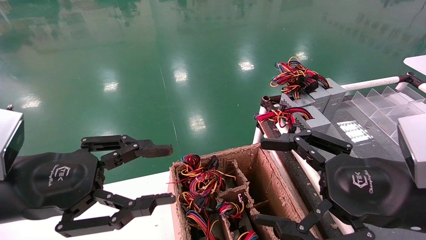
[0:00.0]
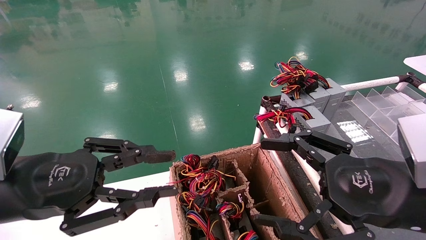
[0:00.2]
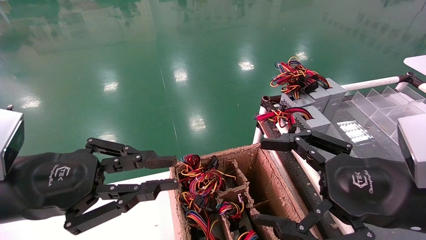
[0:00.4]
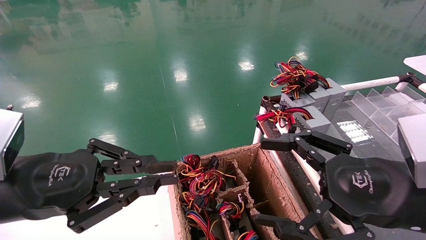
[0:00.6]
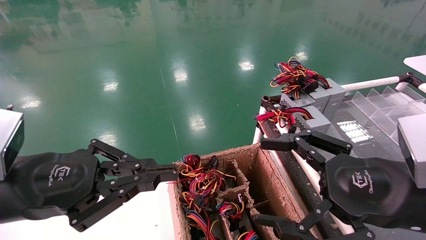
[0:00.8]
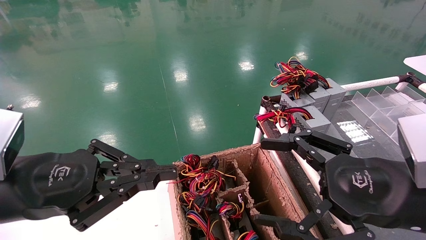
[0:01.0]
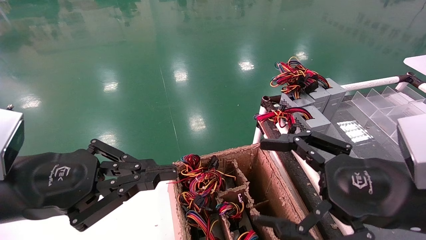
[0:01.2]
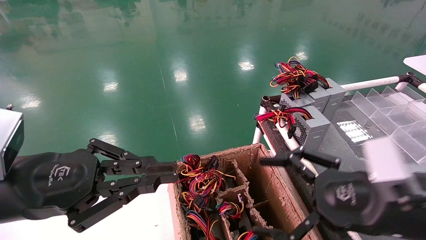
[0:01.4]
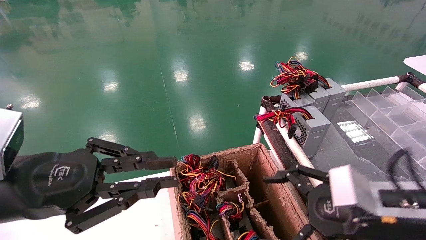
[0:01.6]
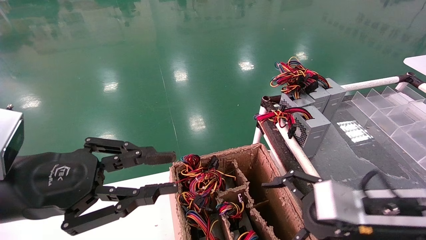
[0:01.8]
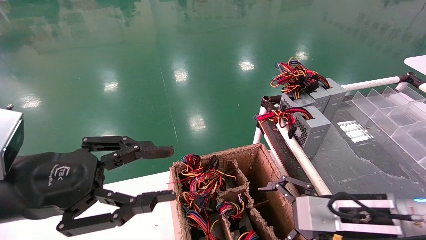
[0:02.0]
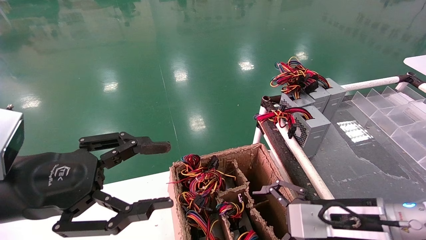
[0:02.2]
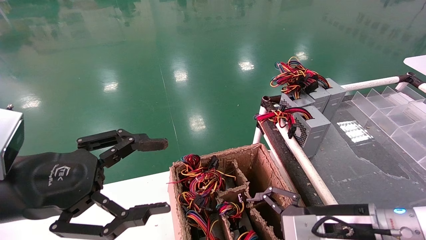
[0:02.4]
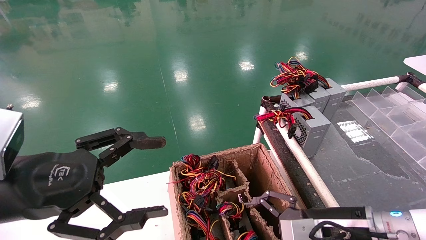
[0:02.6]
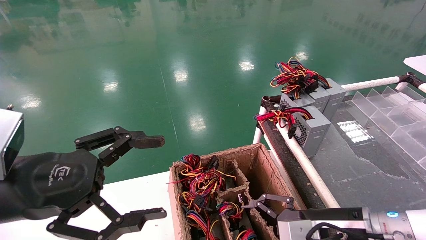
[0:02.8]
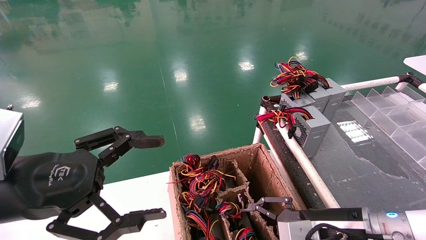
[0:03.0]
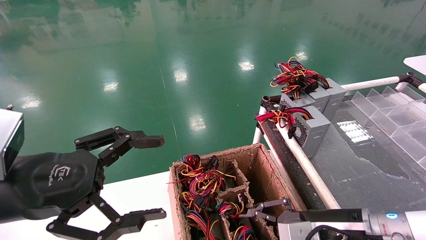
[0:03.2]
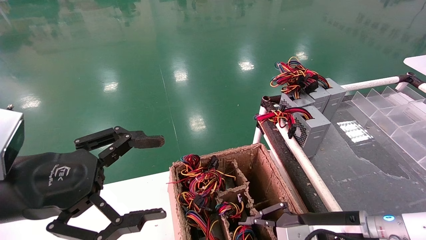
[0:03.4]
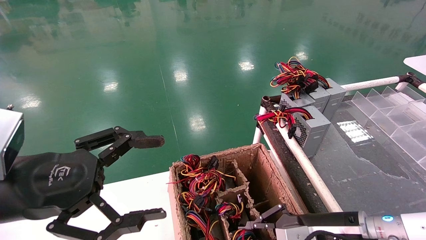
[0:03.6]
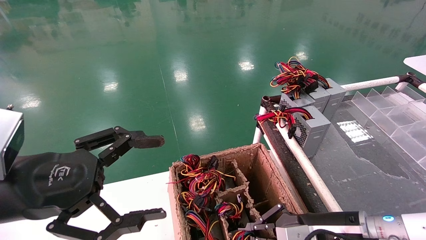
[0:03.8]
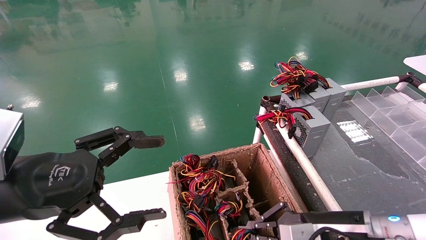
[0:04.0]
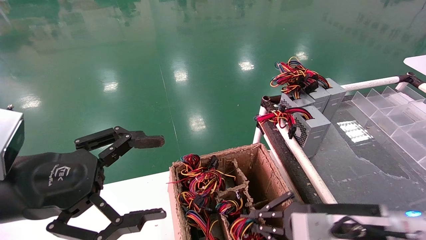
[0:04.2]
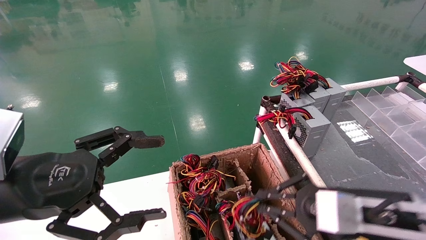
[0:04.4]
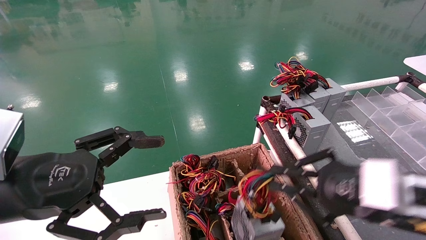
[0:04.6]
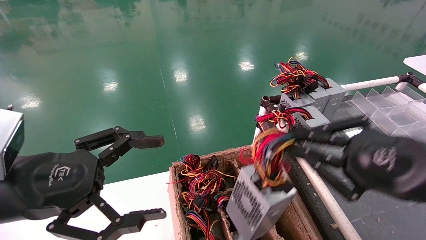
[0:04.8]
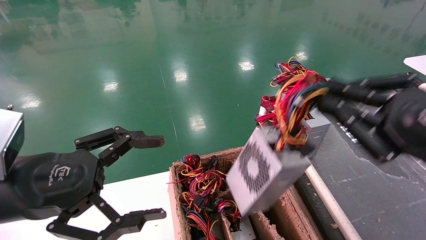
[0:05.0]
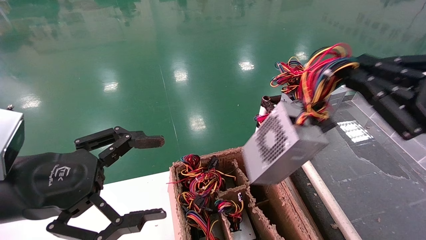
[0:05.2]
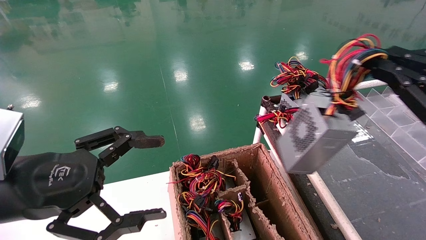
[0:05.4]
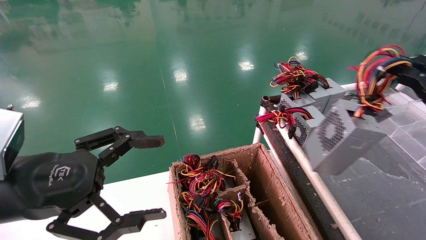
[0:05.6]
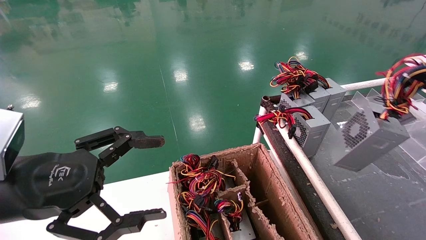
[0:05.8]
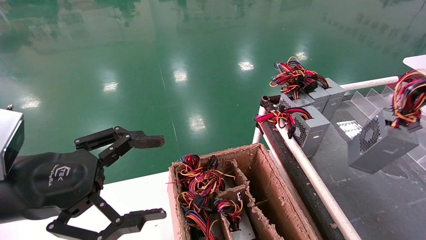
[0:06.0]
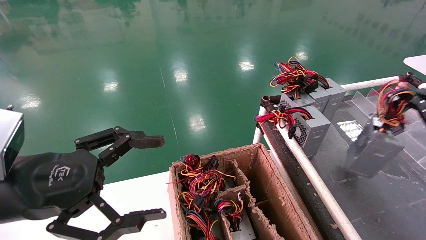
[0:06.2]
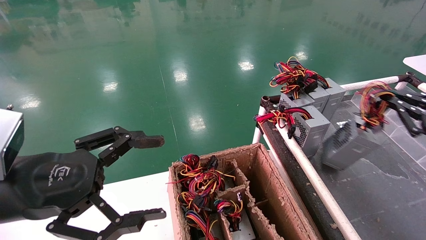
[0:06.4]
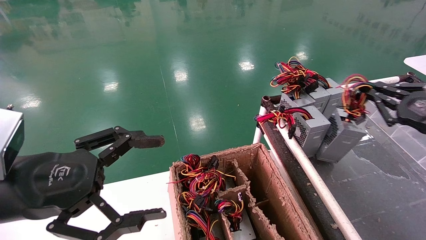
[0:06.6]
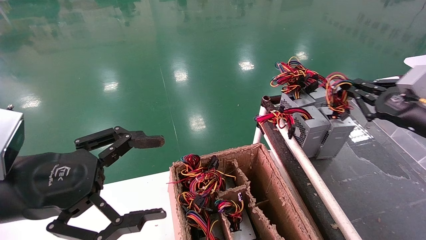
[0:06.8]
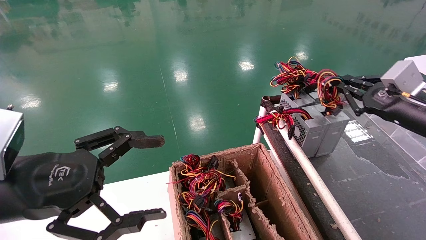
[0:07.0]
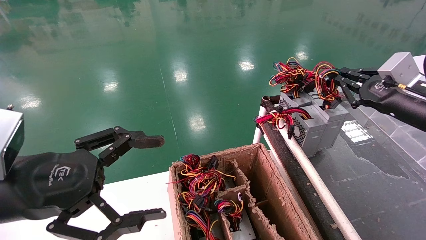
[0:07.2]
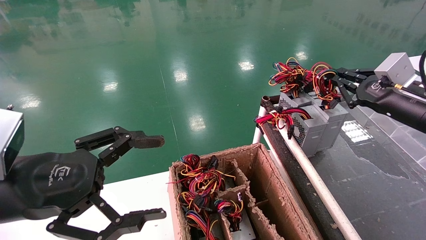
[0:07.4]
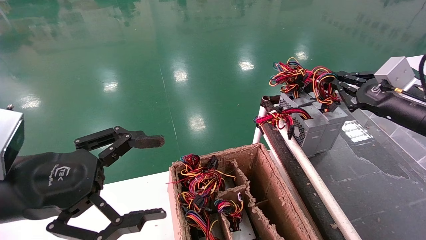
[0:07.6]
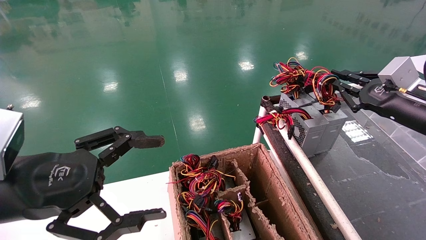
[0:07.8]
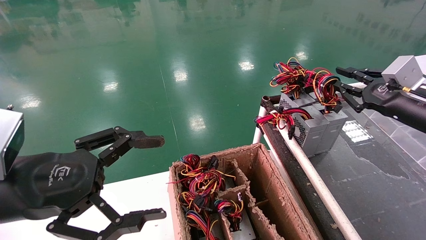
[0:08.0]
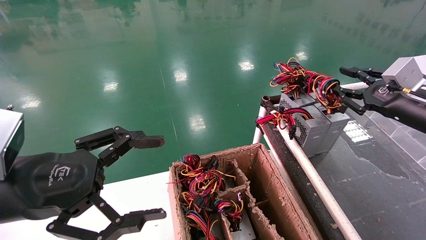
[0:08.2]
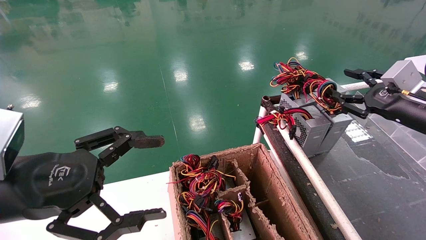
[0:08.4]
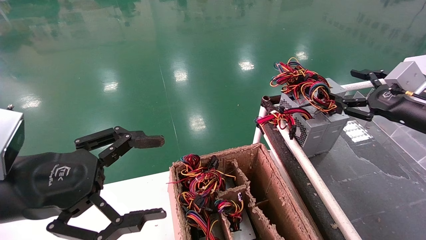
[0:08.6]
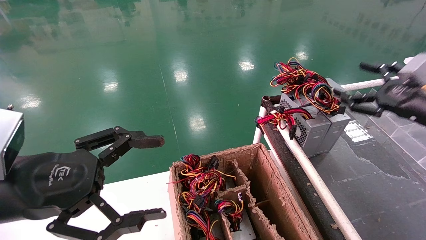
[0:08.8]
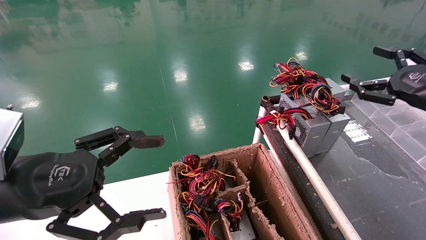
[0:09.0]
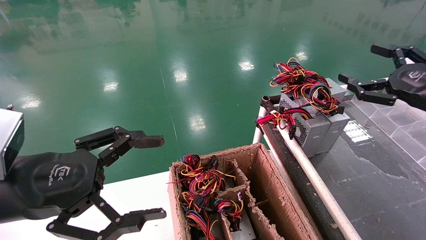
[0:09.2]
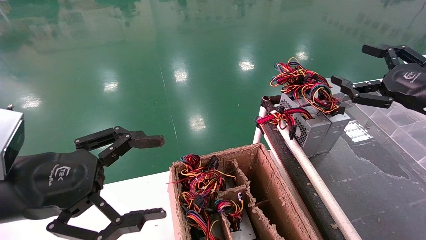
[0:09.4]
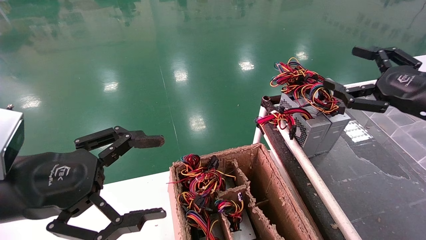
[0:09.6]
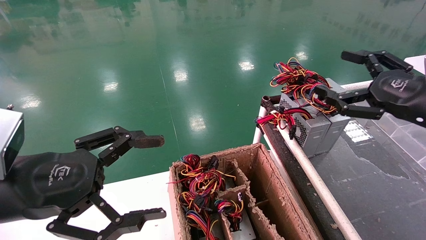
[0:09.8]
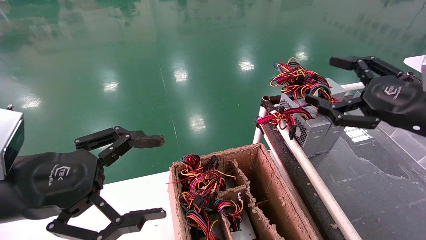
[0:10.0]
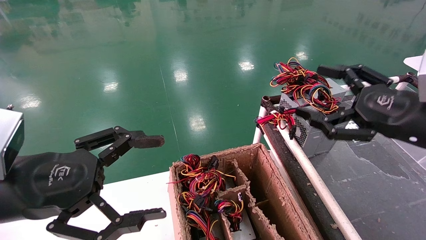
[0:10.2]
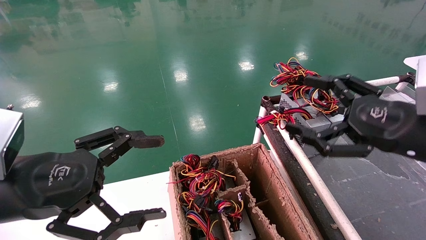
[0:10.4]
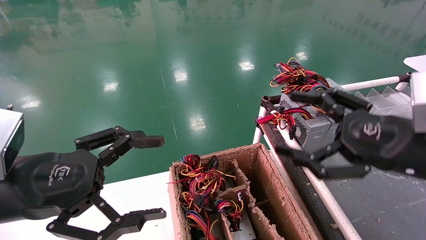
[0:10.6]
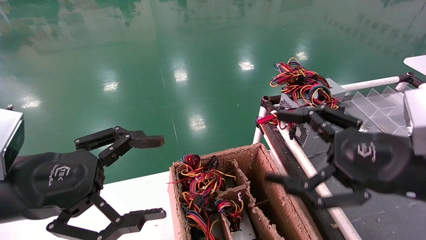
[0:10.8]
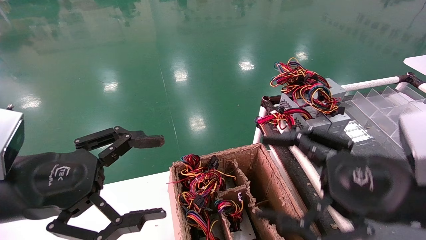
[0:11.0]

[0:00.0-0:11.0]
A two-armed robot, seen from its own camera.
Step, 0:01.0 to 0:04.0: Grab and lift the power supply from the large box.
Step, 0:04.2 to 0:08.0: Place the power supply on the operating table.
0:00.0 to 0:01.6: The left gripper closes up. Meanwhile the right gripper ends up some 5 cm from where it was.
0:01.6 to 0:03.2: The right gripper moves downward, about 10 cm, and closes up, while the left gripper opens.
0:03.2 to 0:04.8: The right gripper heads upward, backward and to the right, covering roughly 15 cm, and closes its fingers.
0:04.8 to 0:06.2: The right gripper moves to the right, approximately 20 cm.
0:06.2 to 0:07.8: The right gripper travels forward and to the left by some 15 cm.
0:07.8 to 0:09.4: The right gripper shifts approximately 5 cm backward, and opens.
0:09.4 to 0:11.0: The right gripper goes some 20 cm to the left and backward.

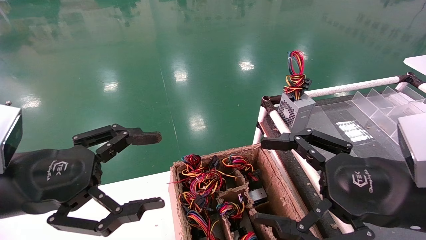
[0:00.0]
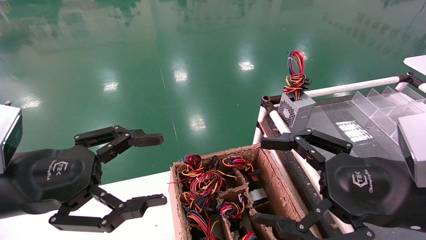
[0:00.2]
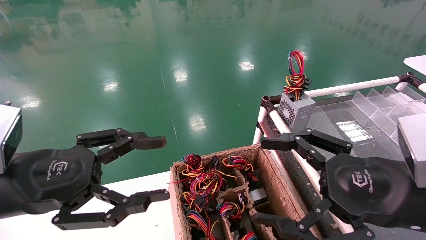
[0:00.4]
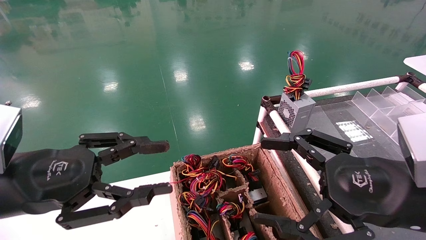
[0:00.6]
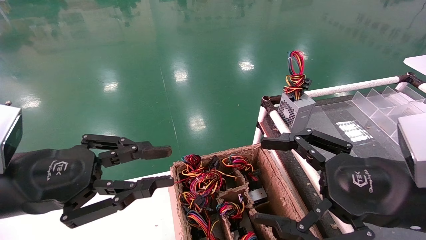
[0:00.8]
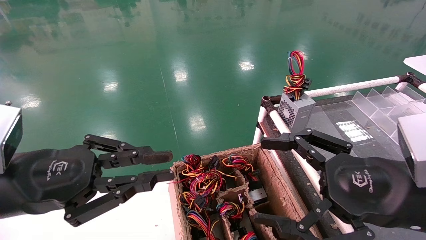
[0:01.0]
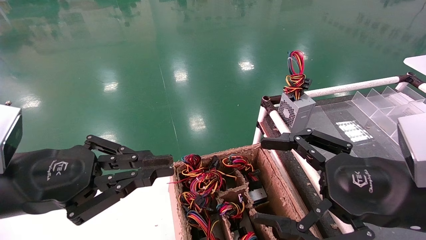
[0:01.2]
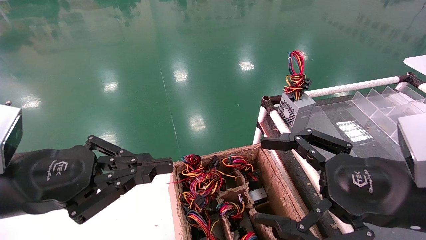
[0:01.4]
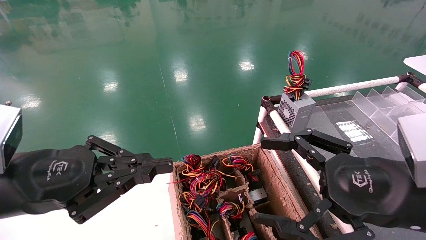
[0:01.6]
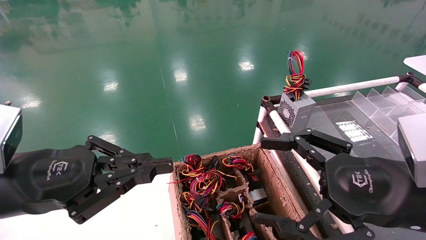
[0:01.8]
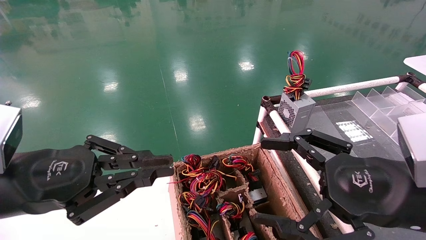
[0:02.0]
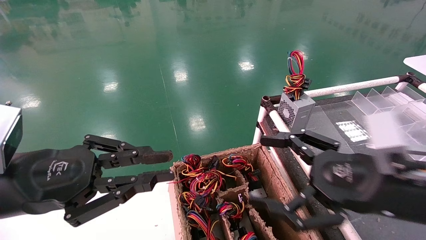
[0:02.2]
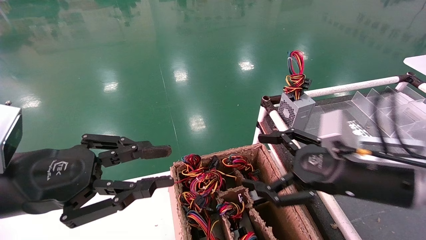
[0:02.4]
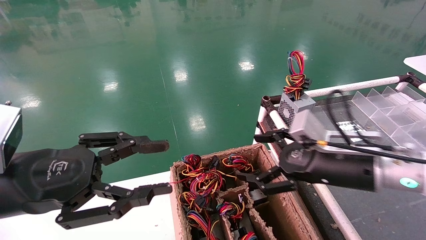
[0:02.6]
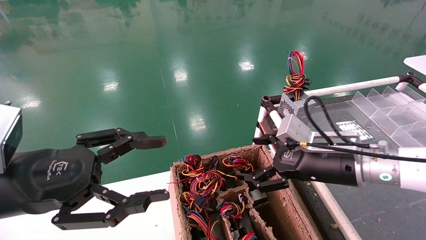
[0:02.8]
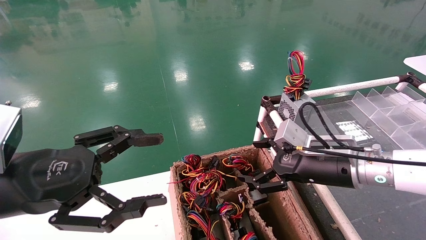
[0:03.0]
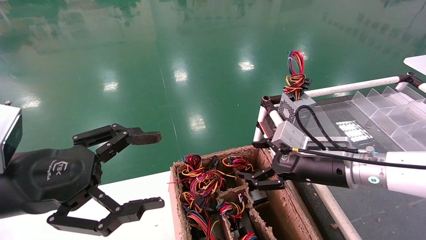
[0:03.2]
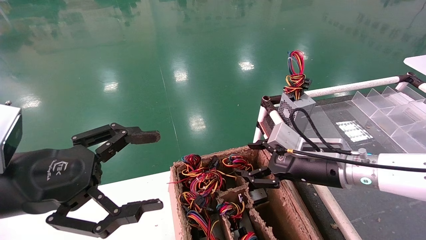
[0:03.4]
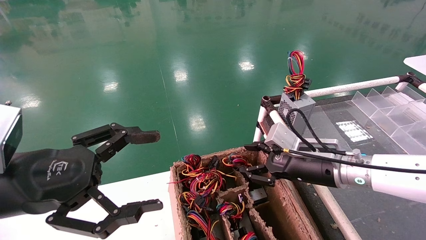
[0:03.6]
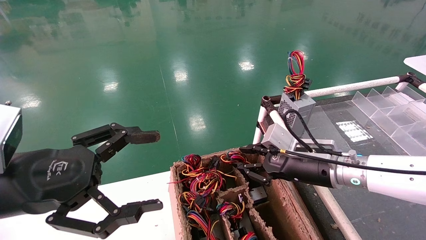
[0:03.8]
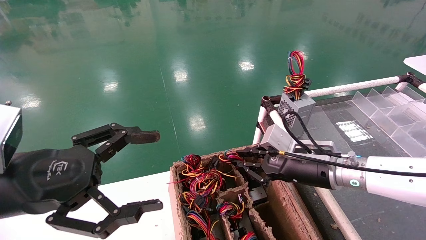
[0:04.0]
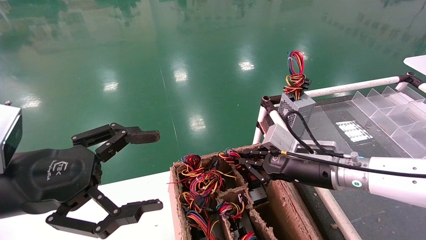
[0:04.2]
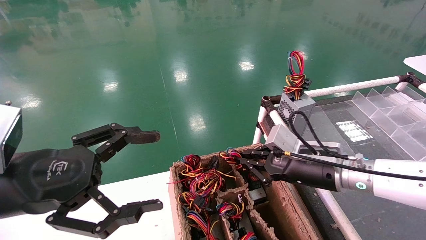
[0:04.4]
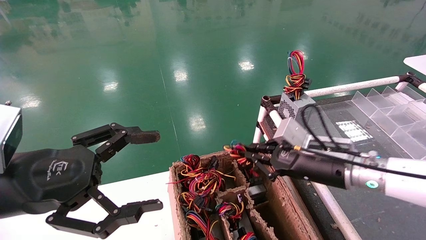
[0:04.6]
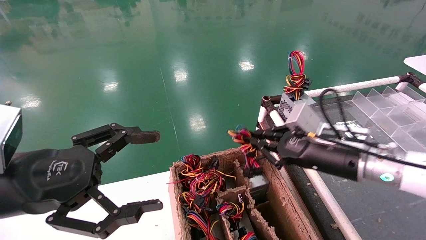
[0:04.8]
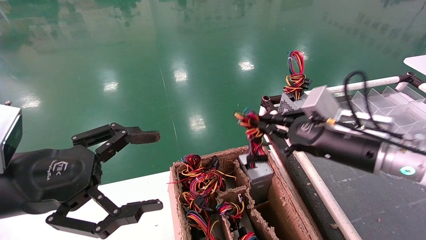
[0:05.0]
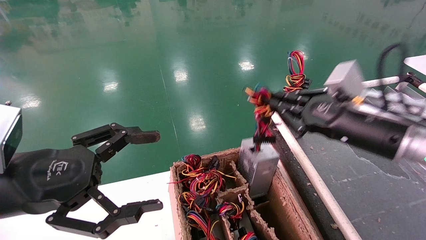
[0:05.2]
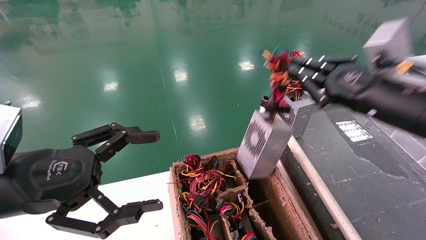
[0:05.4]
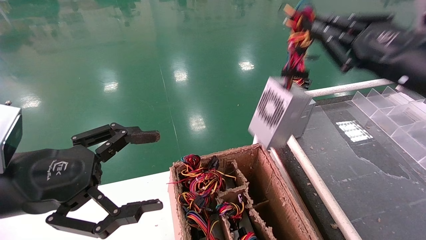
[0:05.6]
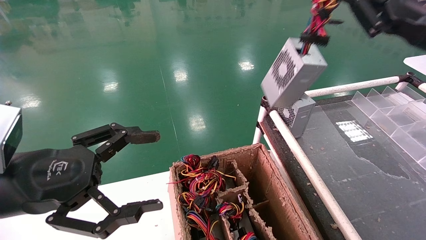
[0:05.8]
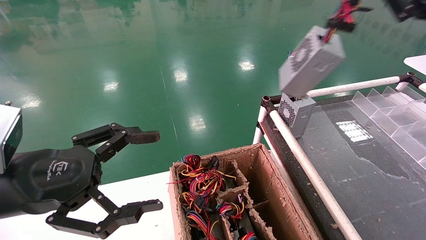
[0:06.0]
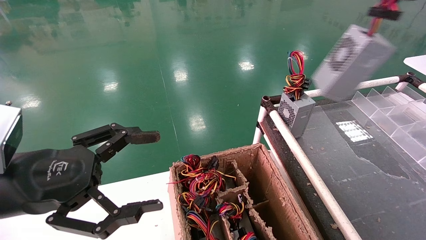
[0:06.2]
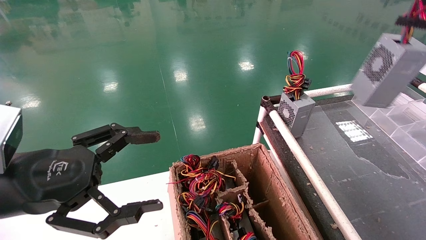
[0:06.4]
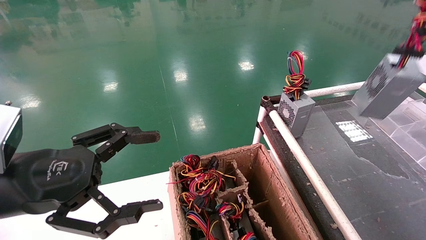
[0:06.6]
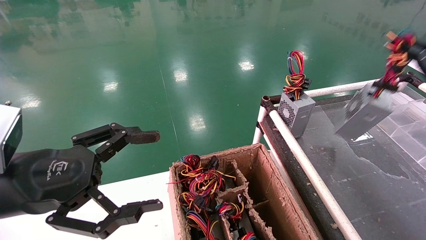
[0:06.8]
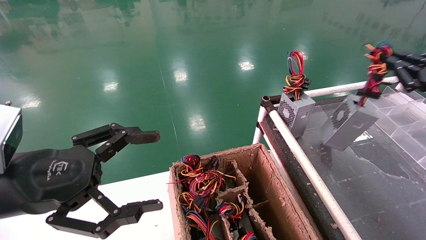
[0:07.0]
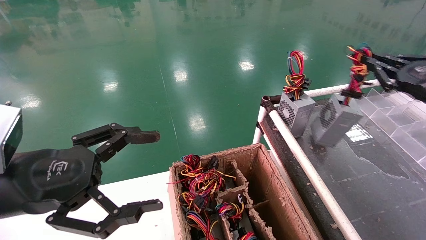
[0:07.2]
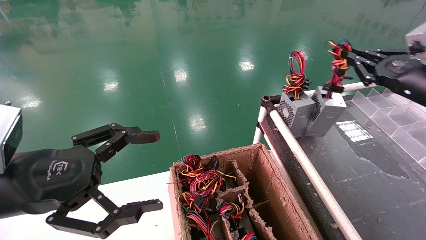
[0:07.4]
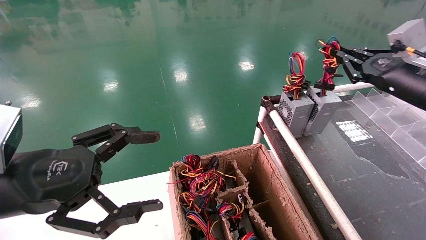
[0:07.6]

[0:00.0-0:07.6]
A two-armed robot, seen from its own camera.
Step, 0:01.6 to 0:04.6: Grab and lift the power supply from the large box.
0:00.0 to 0:01.6: The left gripper closes its fingers.
0:01.6 to 0:03.0: The right gripper travels forward by some 15 cm, while the left gripper opens.
0:03.0 to 0:04.6: The right gripper closes its fingers.
0:04.6 to 0:06.0: The right gripper is displaced upward and to the right by approximately 25 cm.
0:06.0 to 0:07.6: The right gripper shifts about 15 cm forward and downward.
